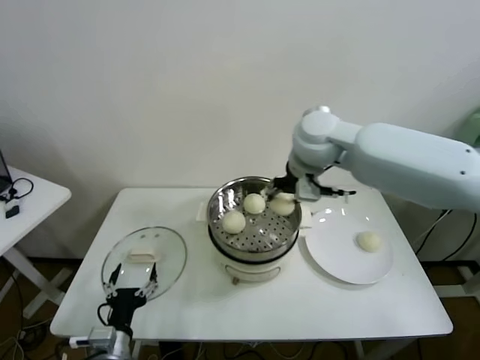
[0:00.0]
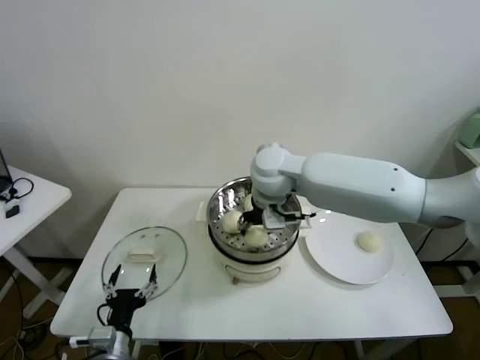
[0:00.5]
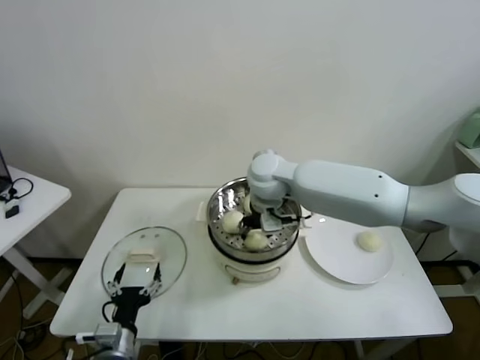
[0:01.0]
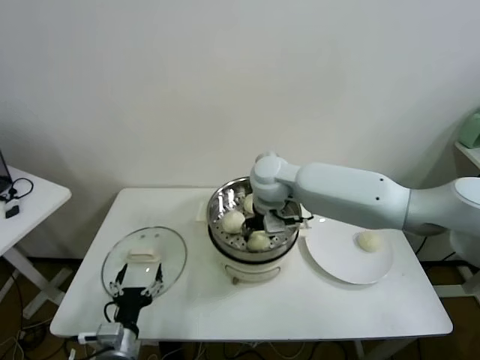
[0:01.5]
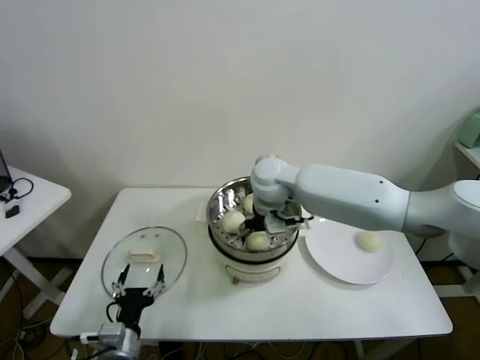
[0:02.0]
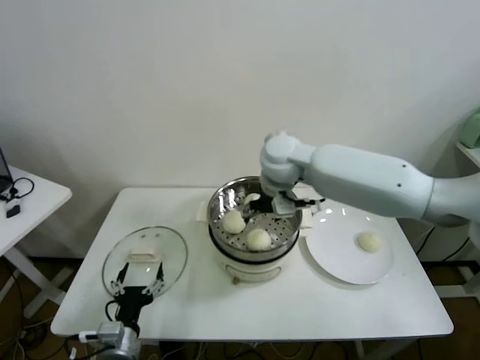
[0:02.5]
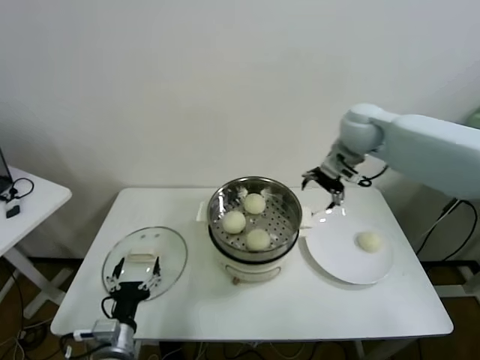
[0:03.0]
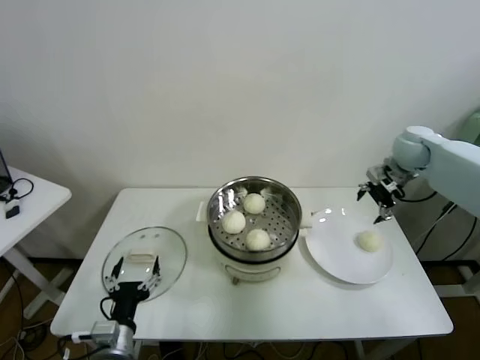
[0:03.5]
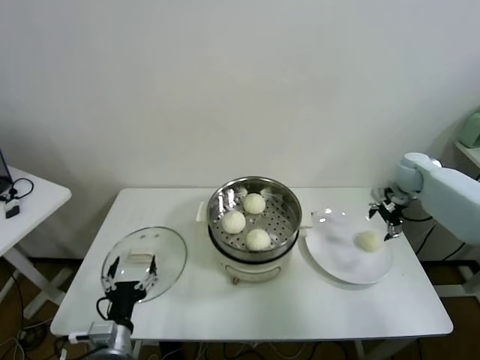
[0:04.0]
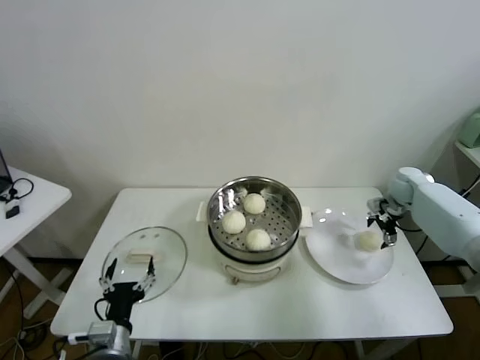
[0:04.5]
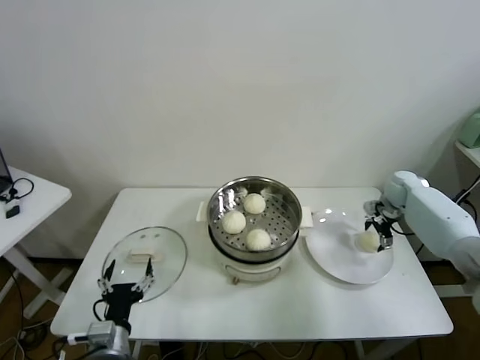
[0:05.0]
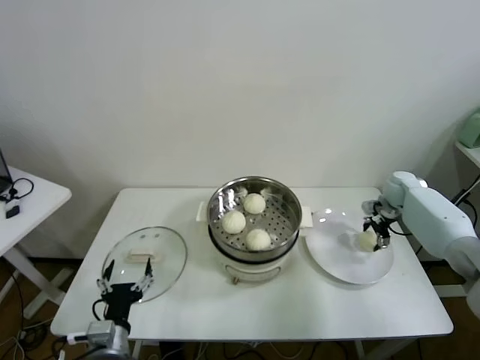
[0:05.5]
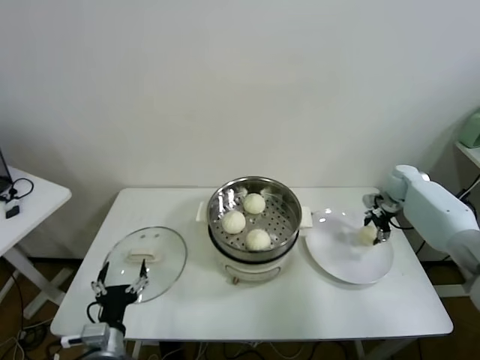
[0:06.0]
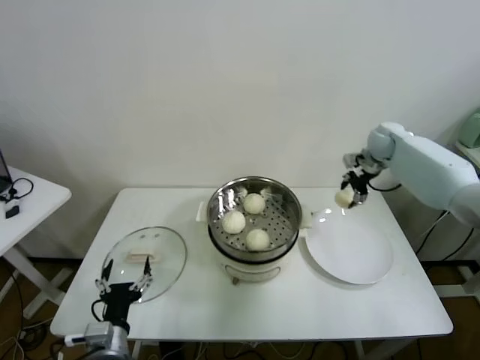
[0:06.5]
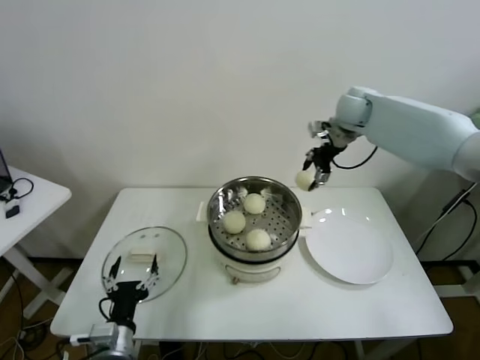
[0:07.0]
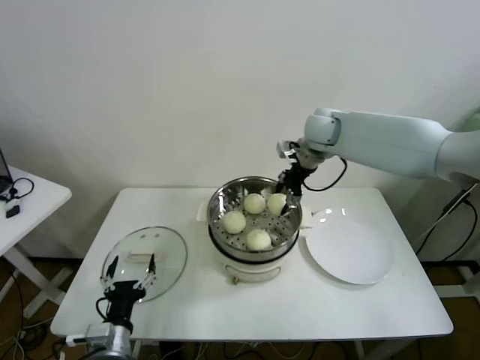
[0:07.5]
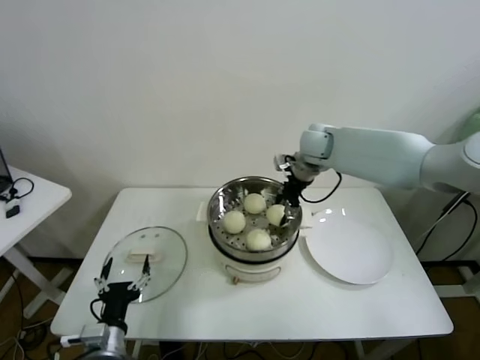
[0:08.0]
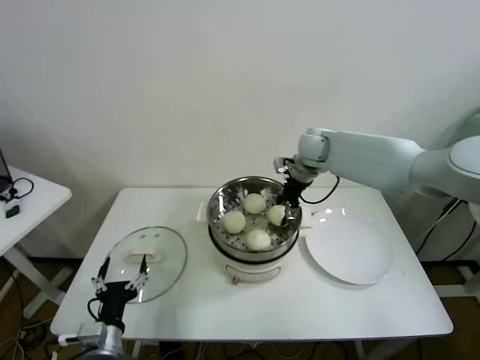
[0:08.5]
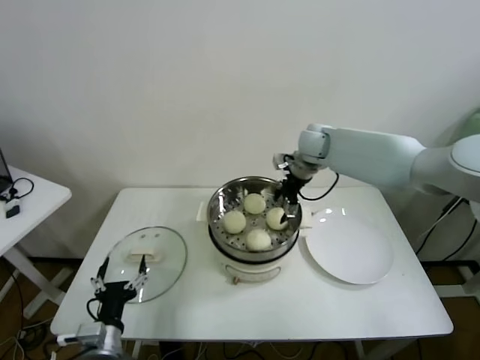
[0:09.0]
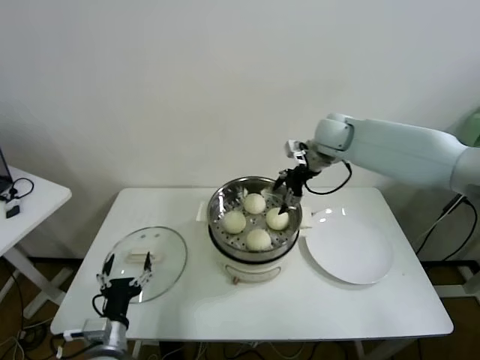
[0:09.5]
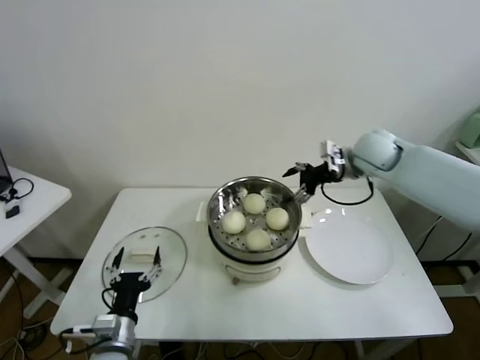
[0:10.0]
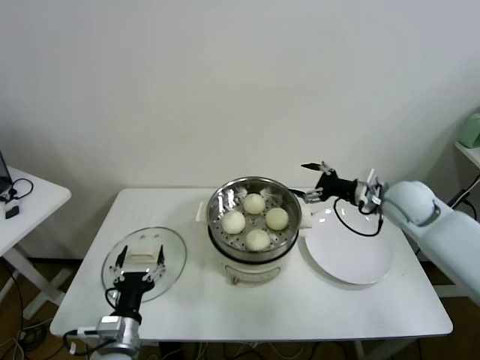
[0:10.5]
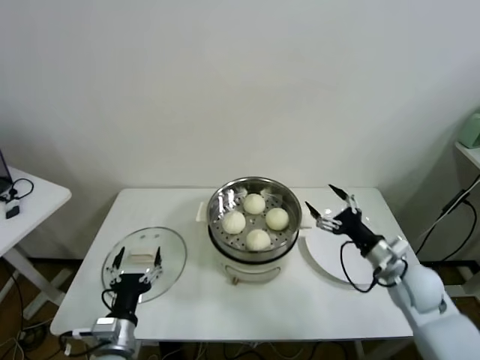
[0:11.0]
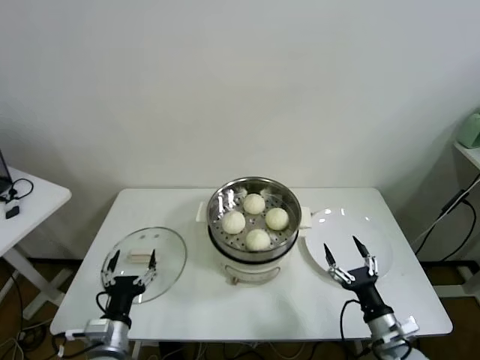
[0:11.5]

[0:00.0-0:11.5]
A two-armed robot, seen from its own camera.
Task of the whole recording: take steamed baozi put them in steamer.
Step, 0:00.0 to 0:02.0: Place the baozi on the steamer with right gripper.
Step, 0:02.5 to 0:05.0: Grasp the baozi in the plate with right gripper.
Step, 0:05.5 to 0:09.0: Place the baozi on the steamer with right gripper.
0:00.0 to 0:02.0: The right gripper shifts approximately 15 cm downward and to the left, and opens its fingers.
0:02.0 to 0:04.0: The right gripper heads to the right, covering approximately 40 cm.
0:04.0 to 0:06.0: The right gripper shifts about 5 cm downward, and closes its fingers.
0:06.0 to 0:07.5: The right gripper heads to the left and upward, covering roughly 30 cm.
0:07.5 to 0:09.5: The right gripper opens up.
0:09.5 to 0:11.5: The right gripper travels backward and downward by approximately 50 cm.
